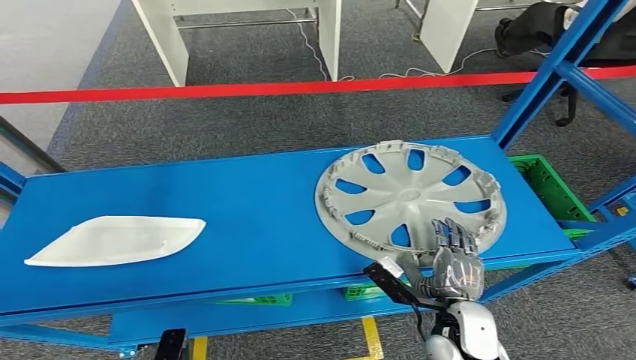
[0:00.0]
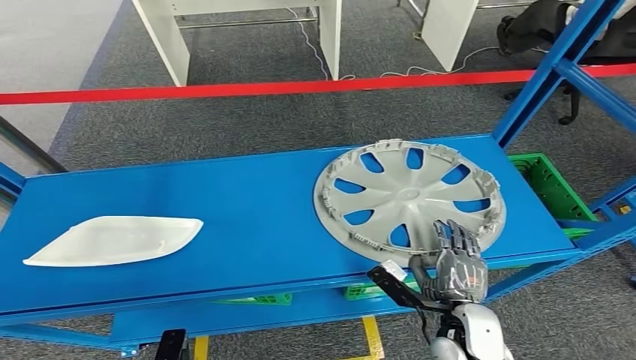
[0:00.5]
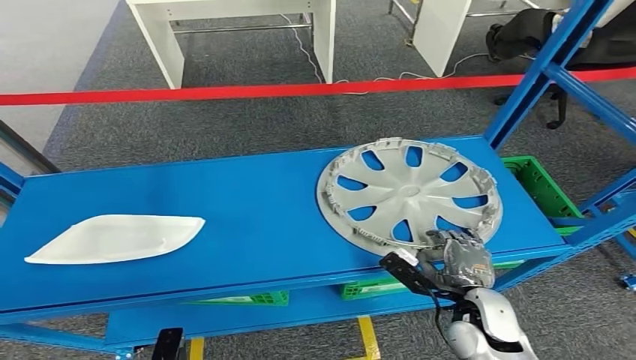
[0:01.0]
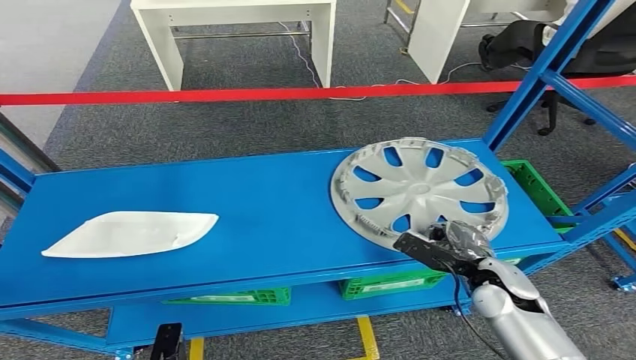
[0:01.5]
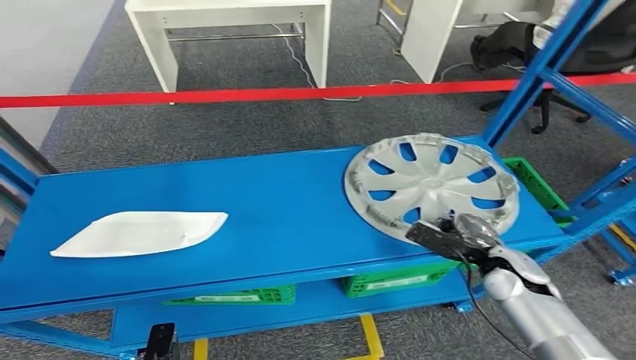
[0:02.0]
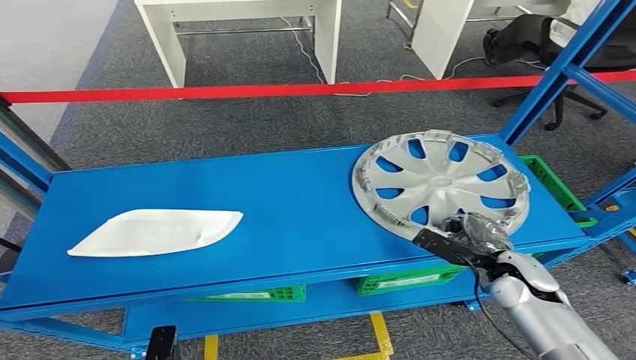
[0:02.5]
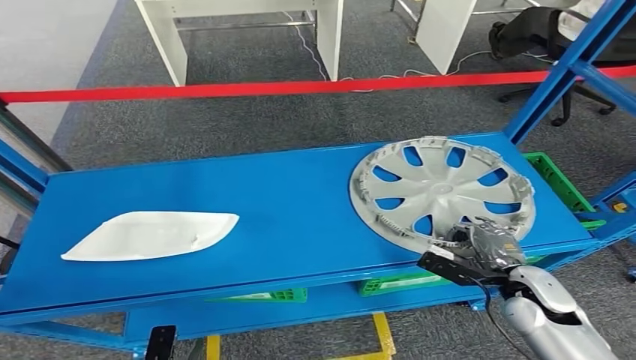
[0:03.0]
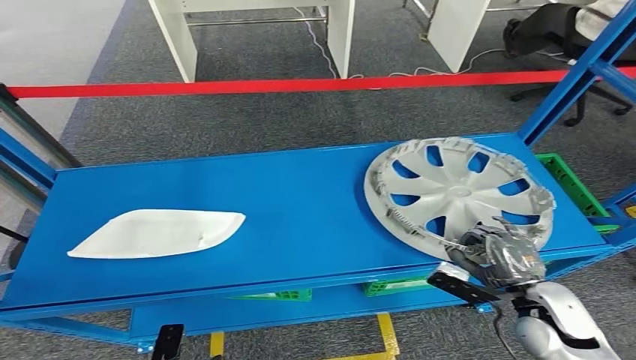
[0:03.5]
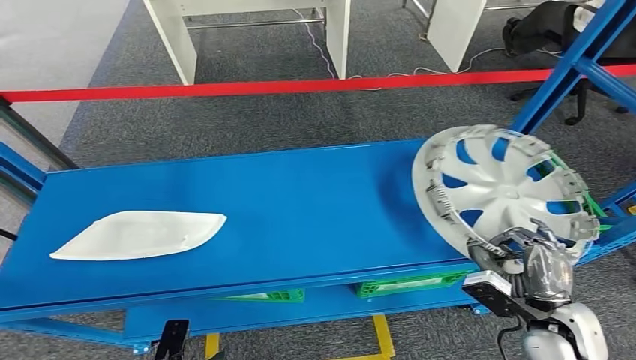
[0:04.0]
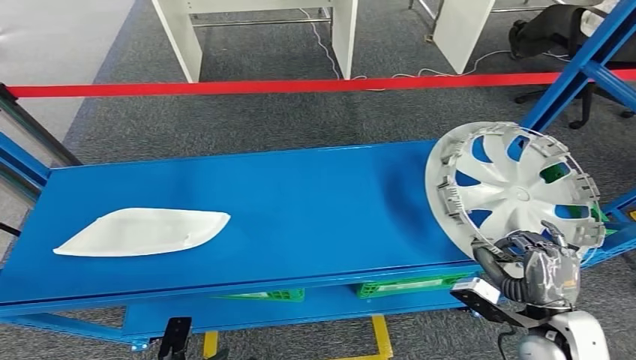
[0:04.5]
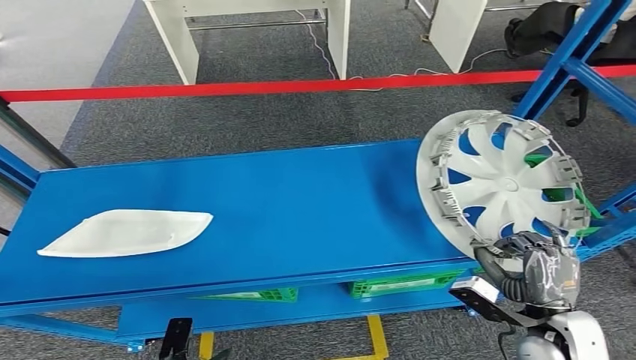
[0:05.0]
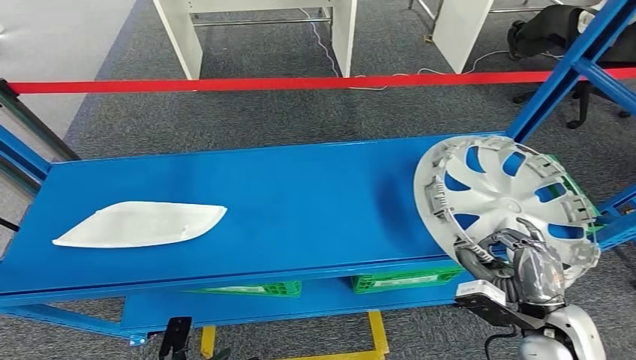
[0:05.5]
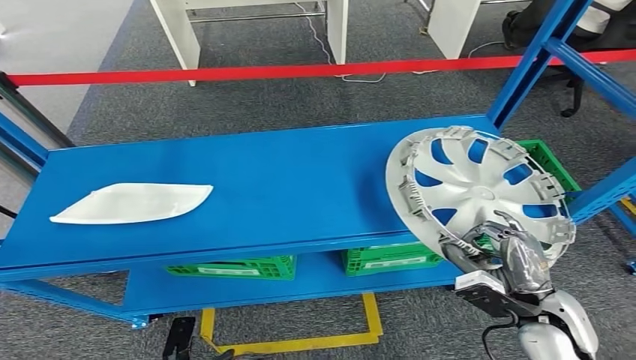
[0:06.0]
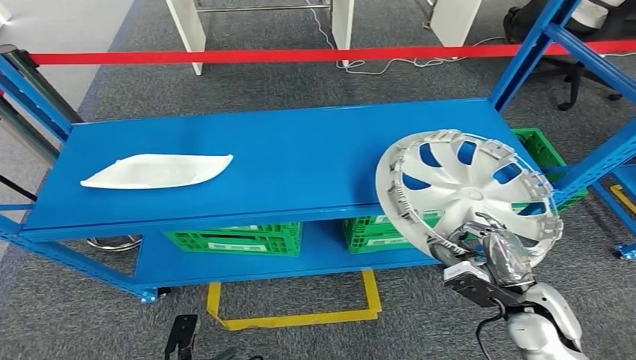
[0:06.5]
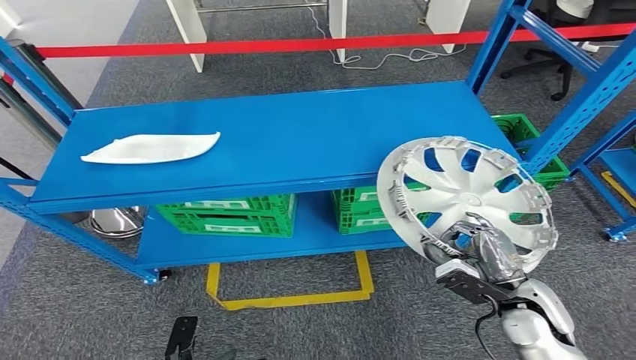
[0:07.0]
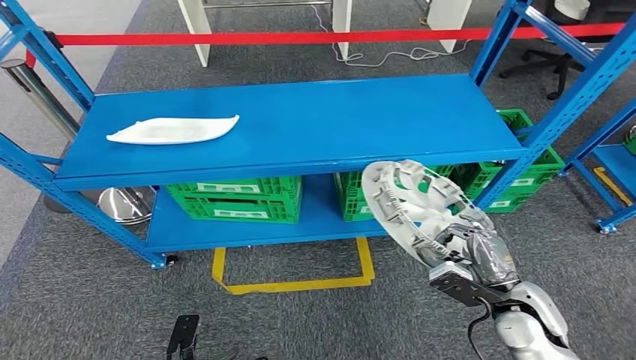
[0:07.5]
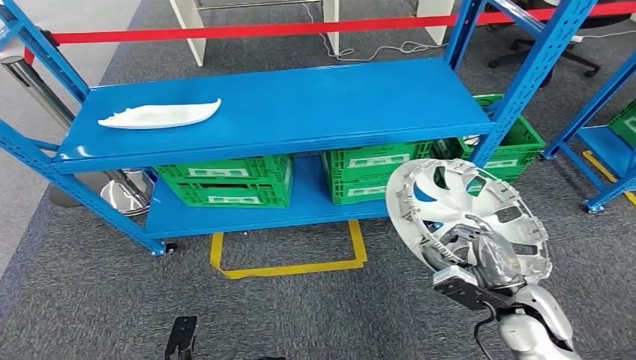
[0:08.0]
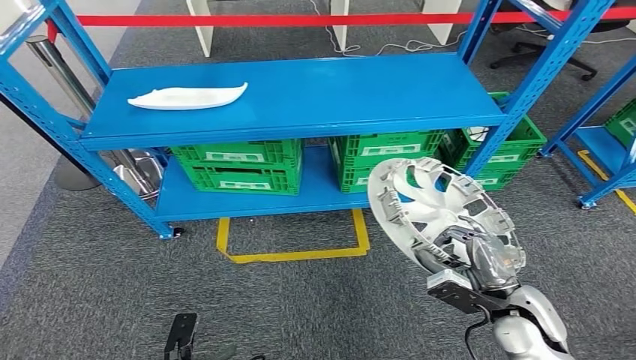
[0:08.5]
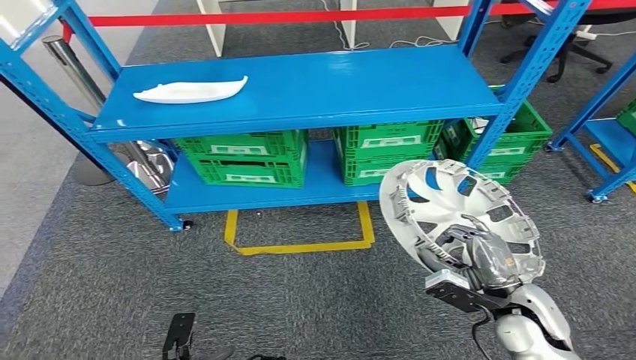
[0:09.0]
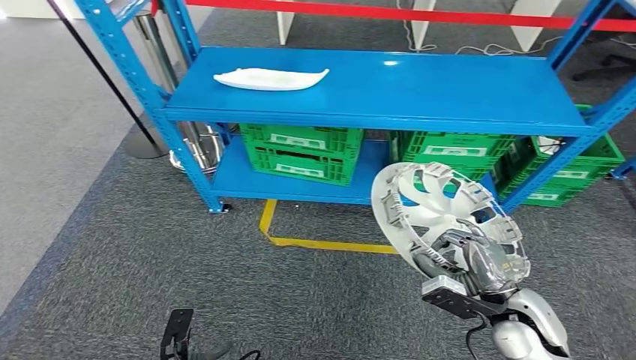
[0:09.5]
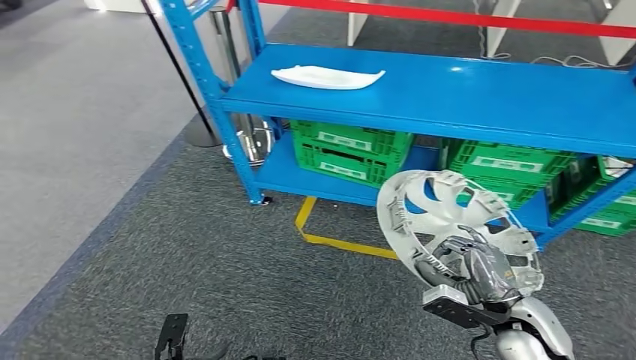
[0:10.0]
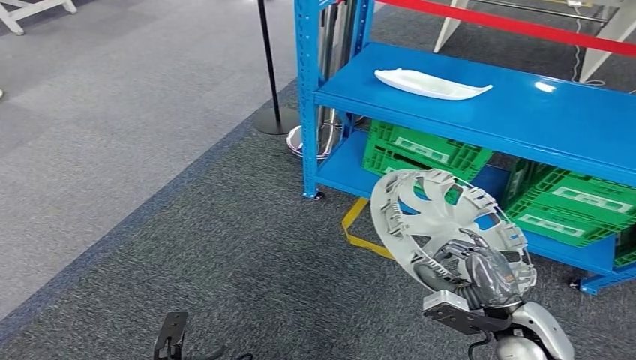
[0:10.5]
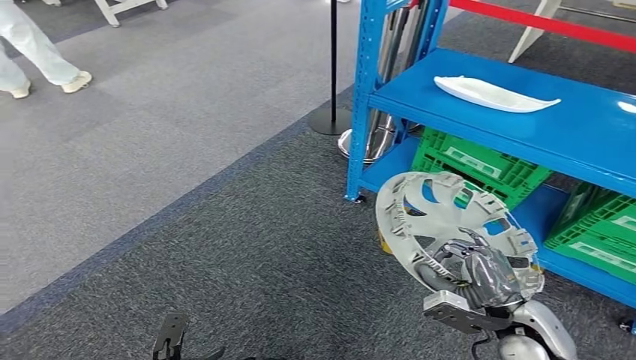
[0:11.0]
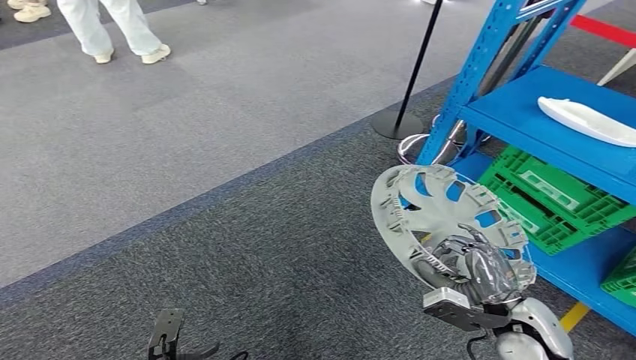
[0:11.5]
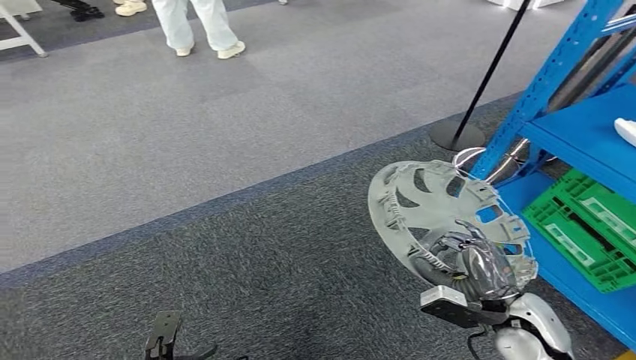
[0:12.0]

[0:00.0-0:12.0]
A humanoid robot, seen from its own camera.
Step, 0:00.0 to 0:07.0: Take small components from the rack.

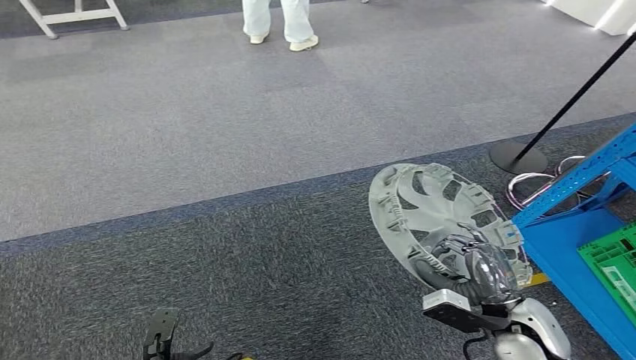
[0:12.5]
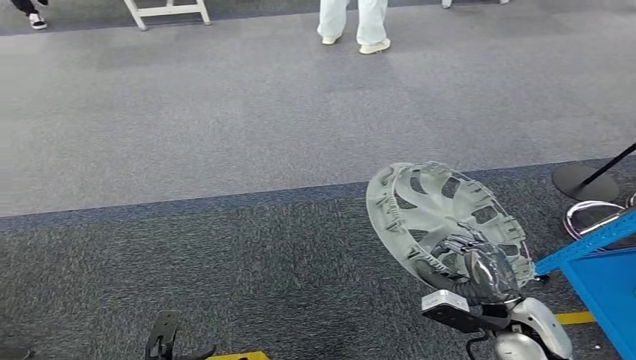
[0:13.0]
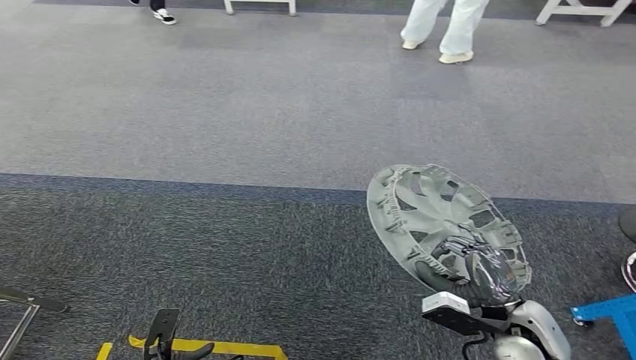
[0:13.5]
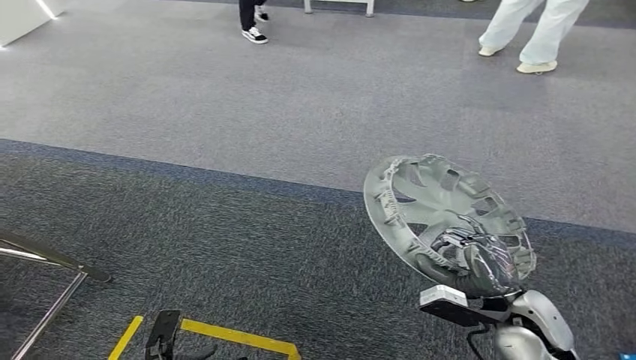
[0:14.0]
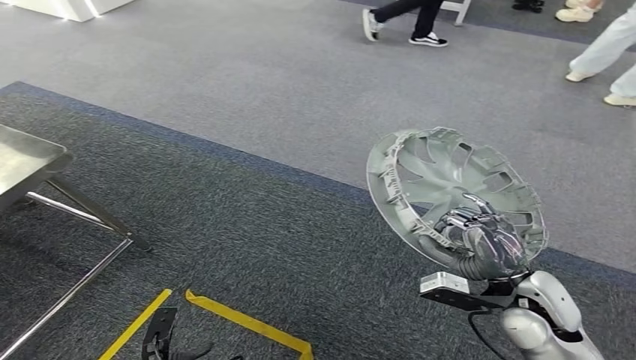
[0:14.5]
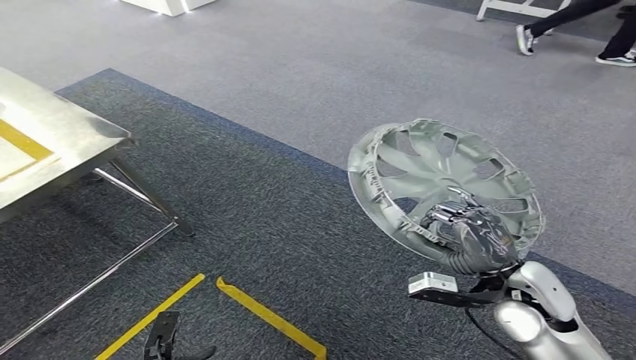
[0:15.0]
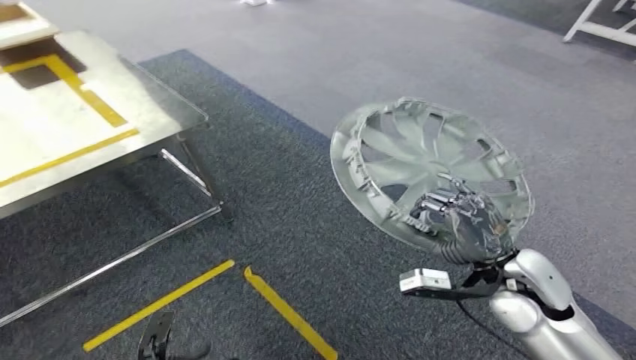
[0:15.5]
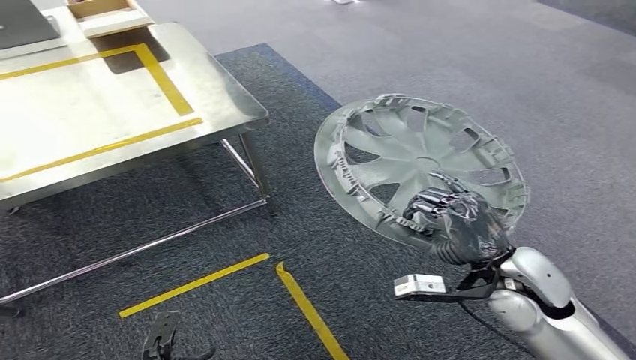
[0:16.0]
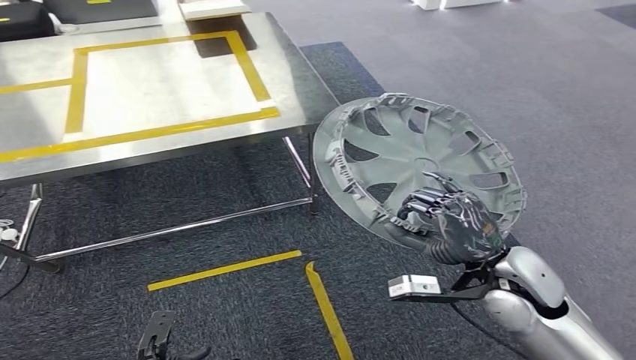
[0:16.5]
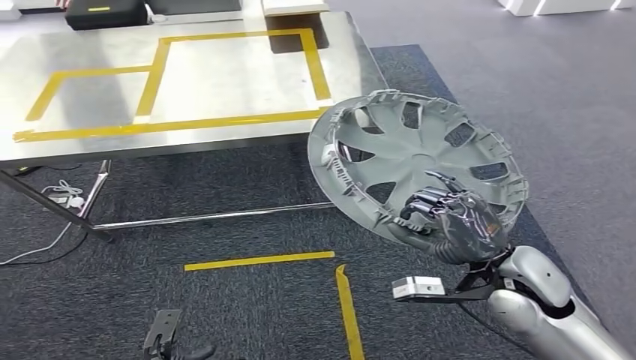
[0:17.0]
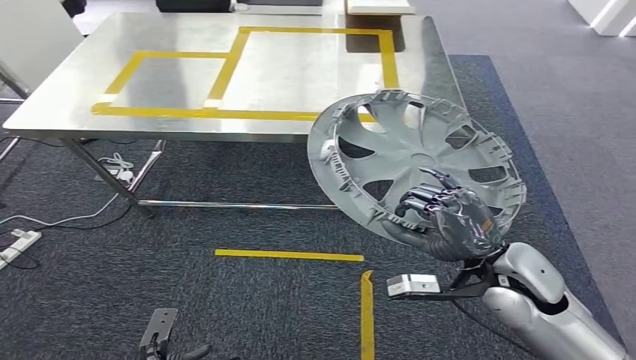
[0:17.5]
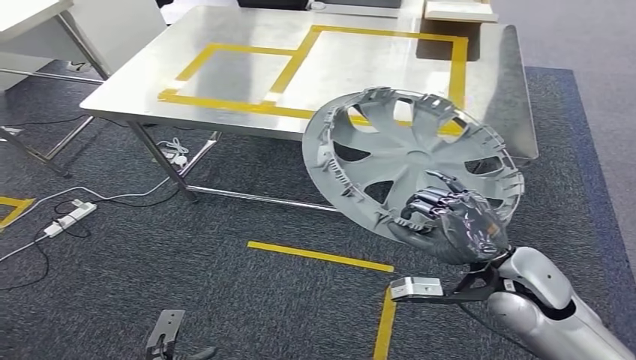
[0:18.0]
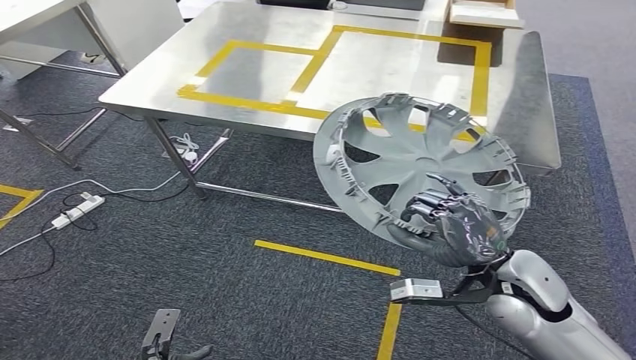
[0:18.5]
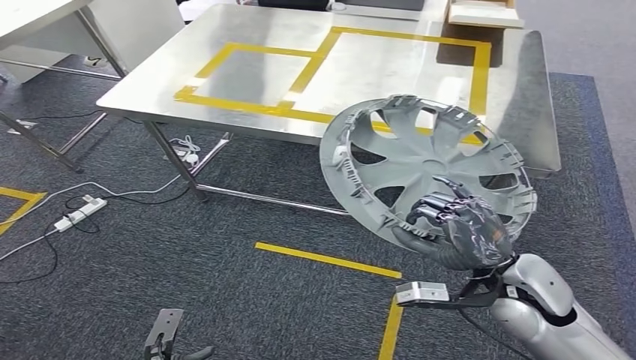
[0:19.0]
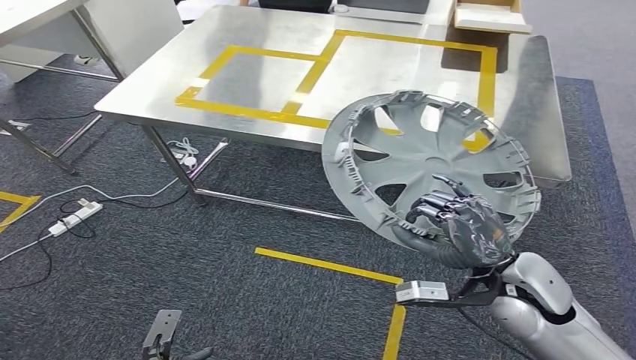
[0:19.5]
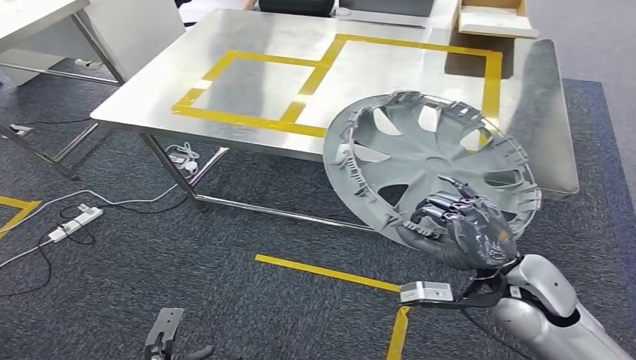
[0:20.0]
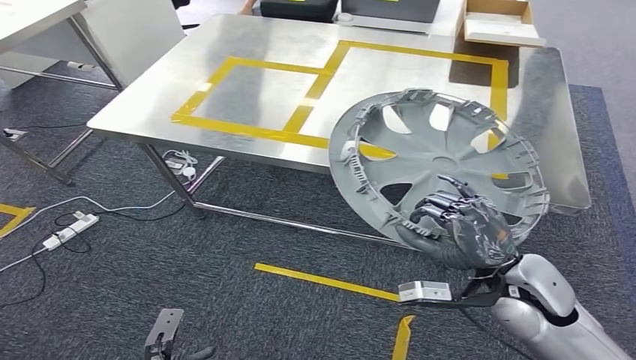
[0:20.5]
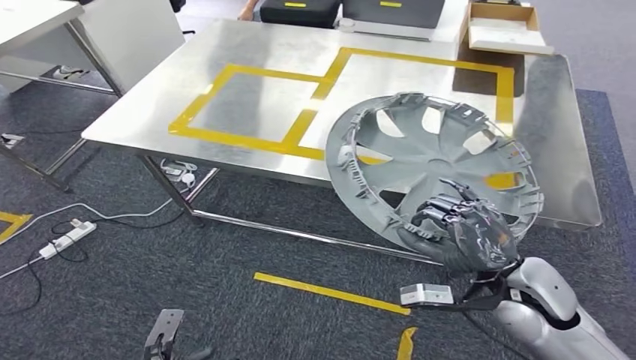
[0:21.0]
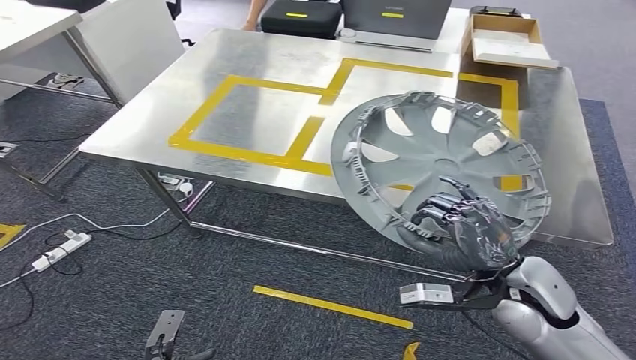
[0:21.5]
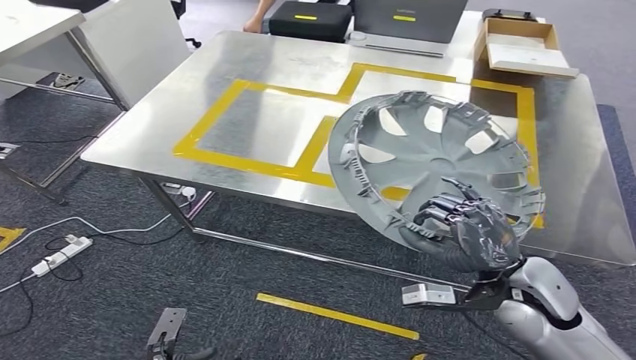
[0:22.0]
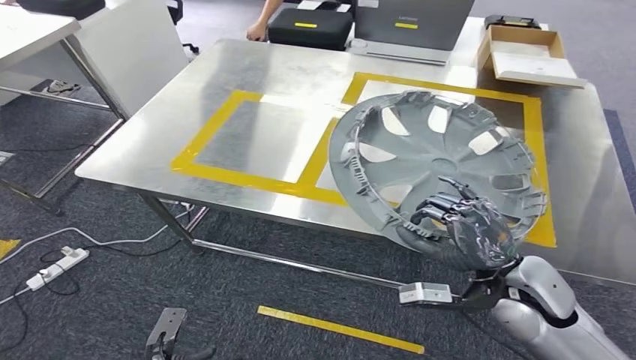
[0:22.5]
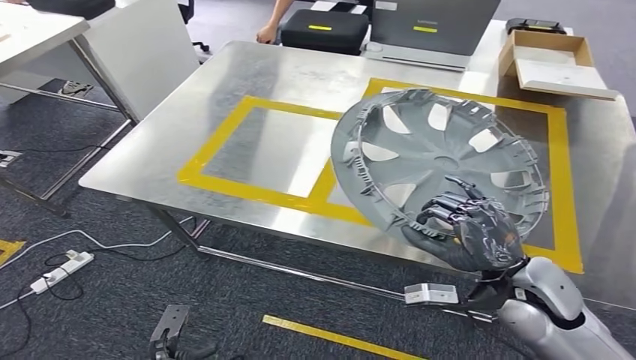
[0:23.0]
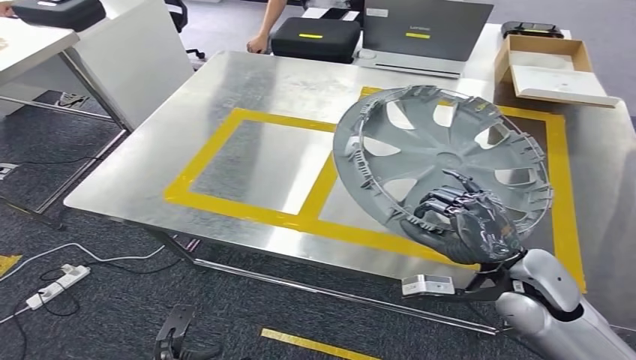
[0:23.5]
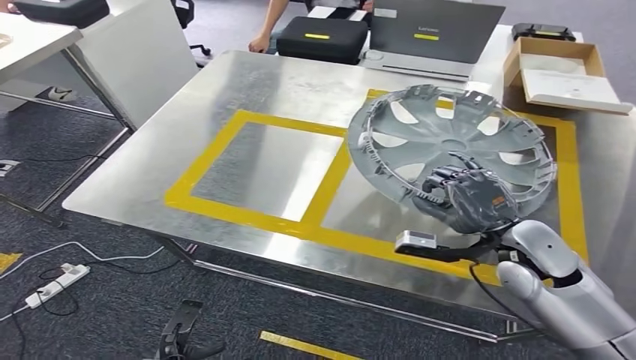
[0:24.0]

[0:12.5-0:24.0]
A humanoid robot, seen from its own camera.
Step, 0:12.5 to 0:20.5: Move the small parts to the workbench.
